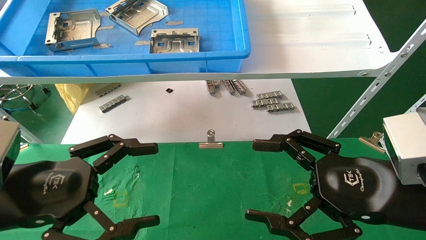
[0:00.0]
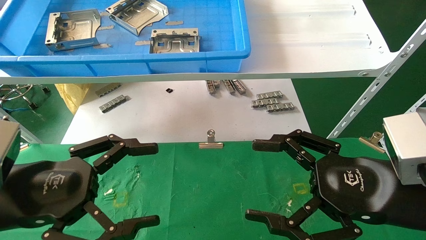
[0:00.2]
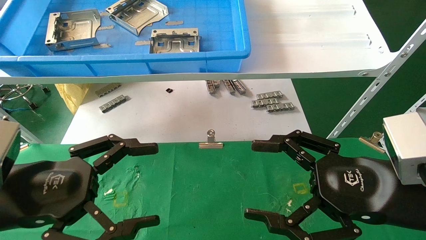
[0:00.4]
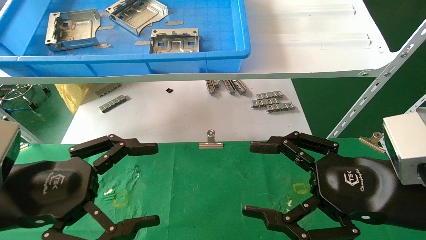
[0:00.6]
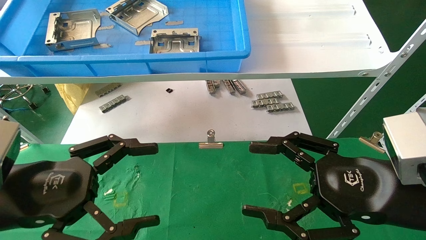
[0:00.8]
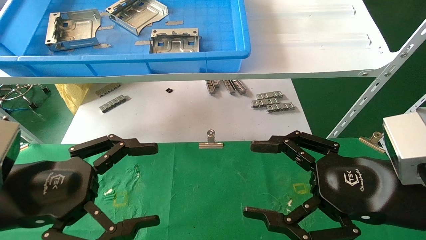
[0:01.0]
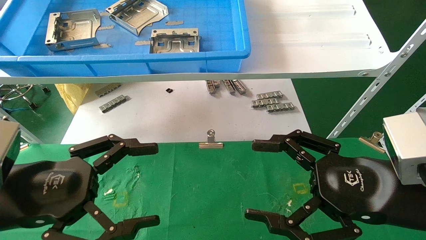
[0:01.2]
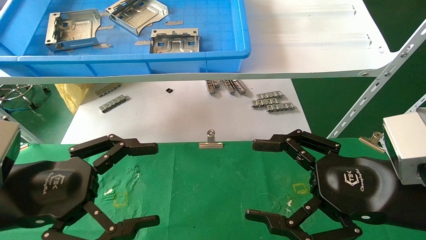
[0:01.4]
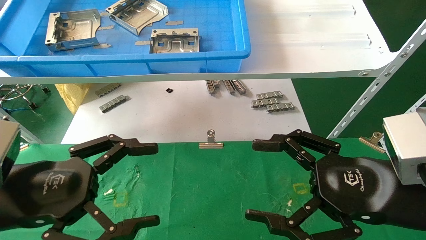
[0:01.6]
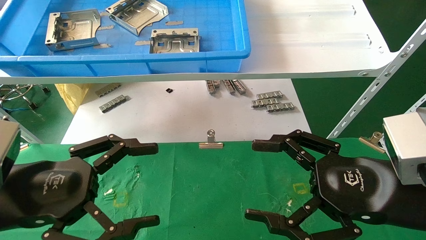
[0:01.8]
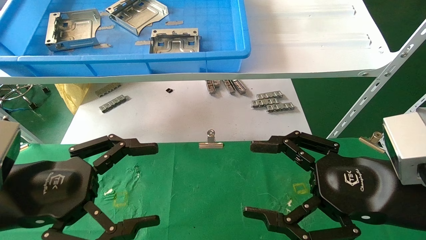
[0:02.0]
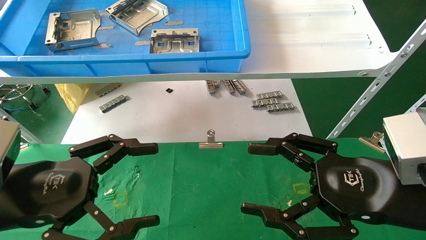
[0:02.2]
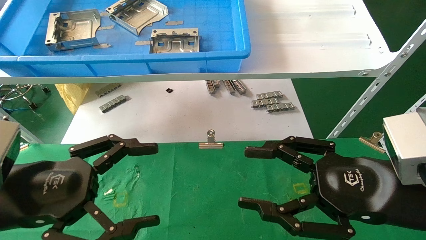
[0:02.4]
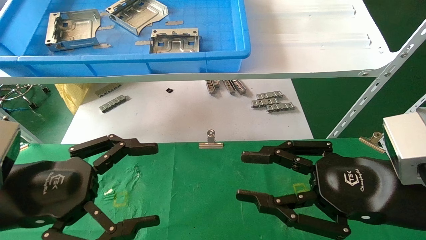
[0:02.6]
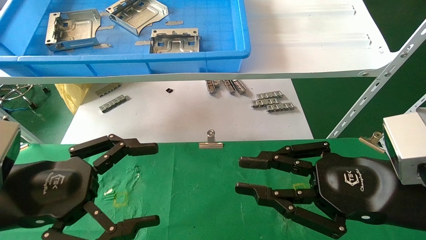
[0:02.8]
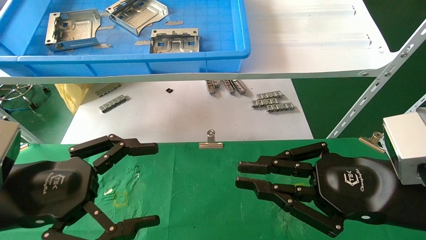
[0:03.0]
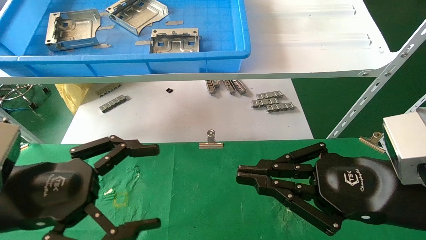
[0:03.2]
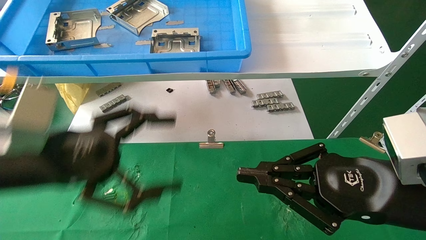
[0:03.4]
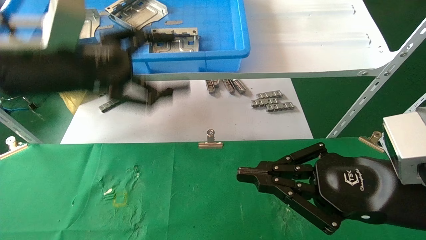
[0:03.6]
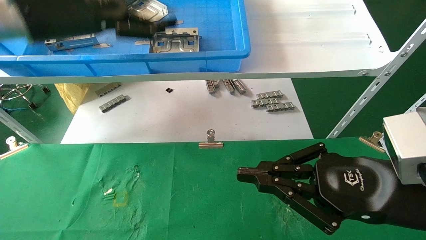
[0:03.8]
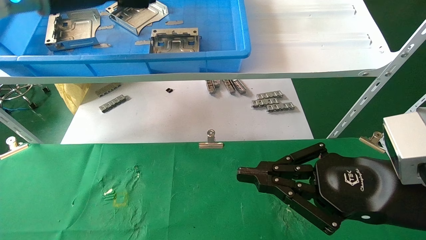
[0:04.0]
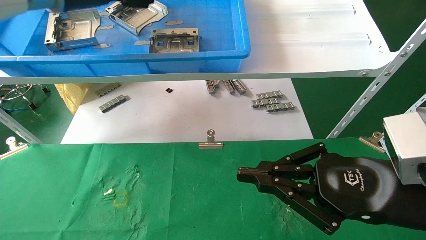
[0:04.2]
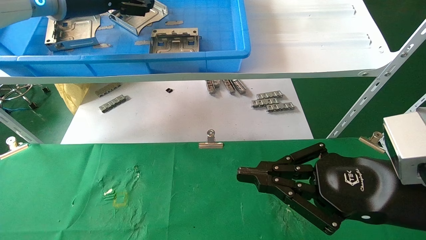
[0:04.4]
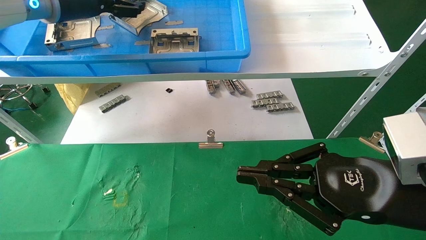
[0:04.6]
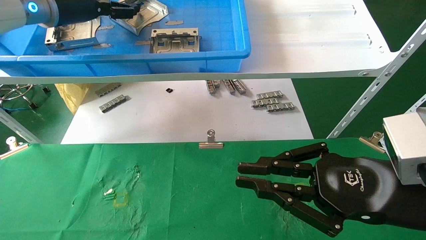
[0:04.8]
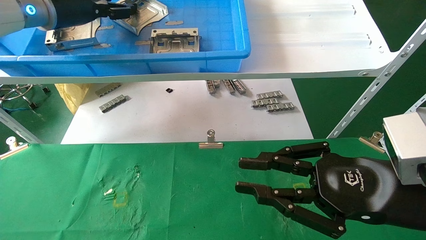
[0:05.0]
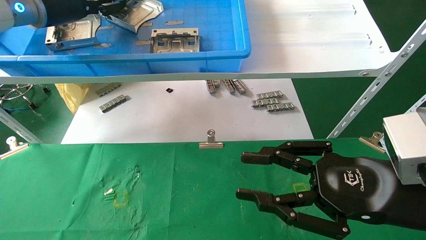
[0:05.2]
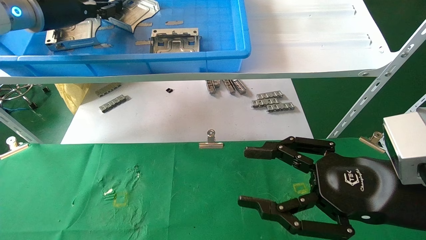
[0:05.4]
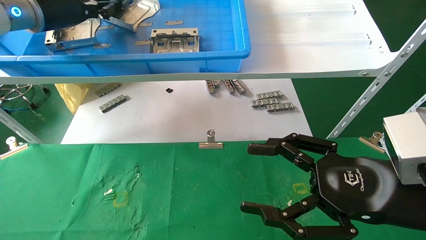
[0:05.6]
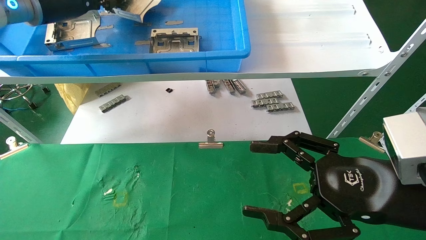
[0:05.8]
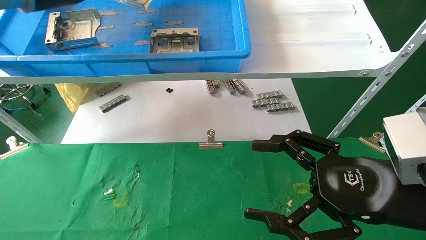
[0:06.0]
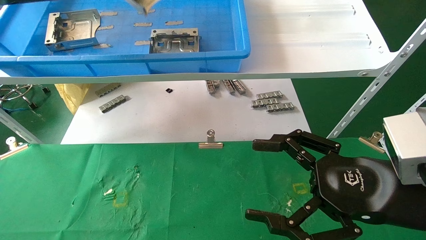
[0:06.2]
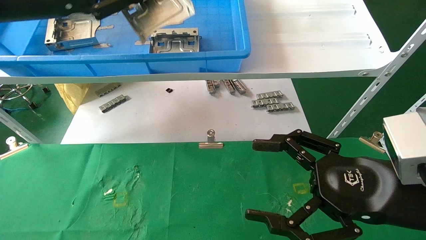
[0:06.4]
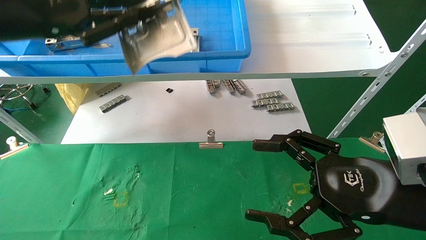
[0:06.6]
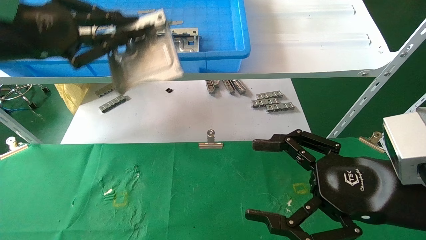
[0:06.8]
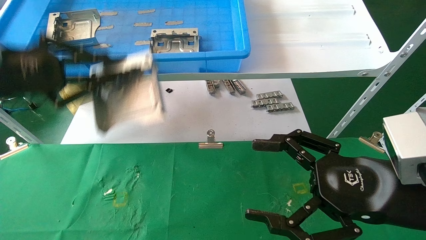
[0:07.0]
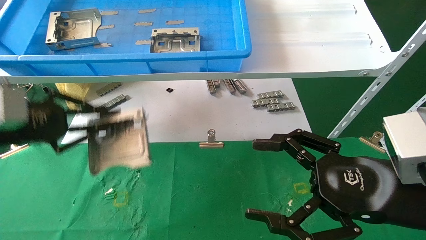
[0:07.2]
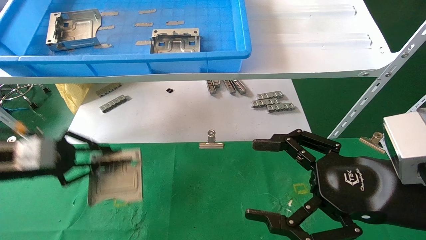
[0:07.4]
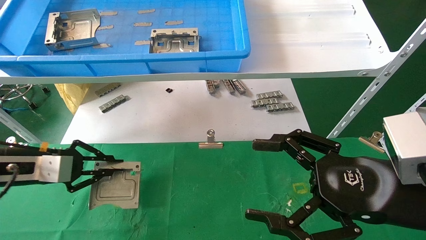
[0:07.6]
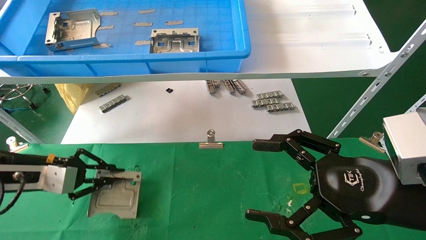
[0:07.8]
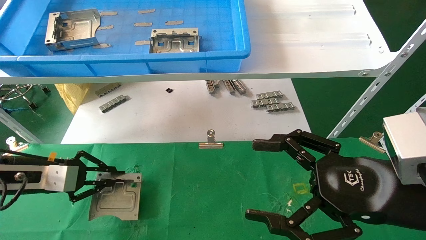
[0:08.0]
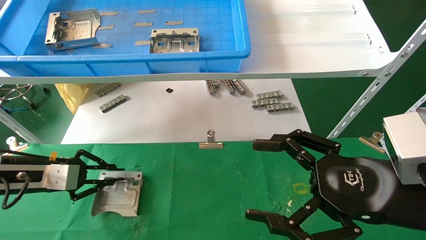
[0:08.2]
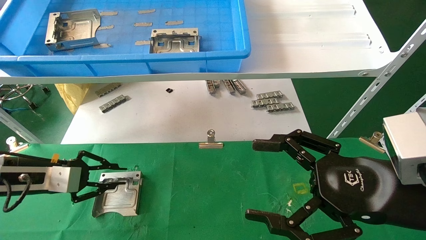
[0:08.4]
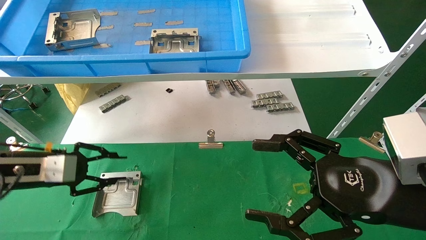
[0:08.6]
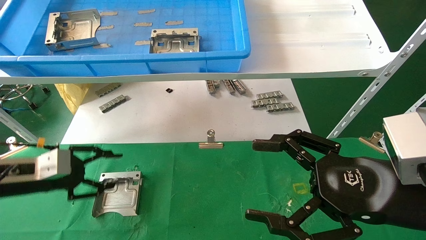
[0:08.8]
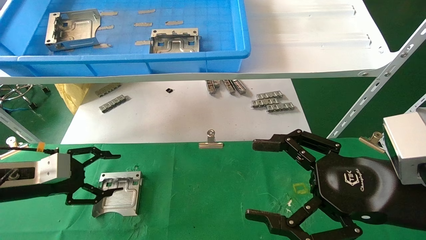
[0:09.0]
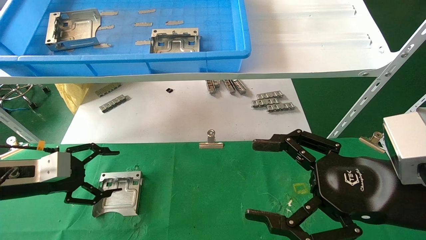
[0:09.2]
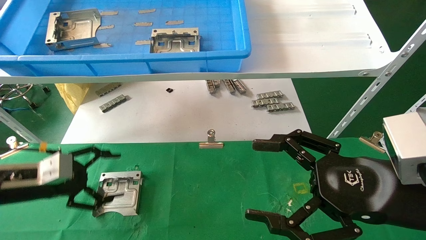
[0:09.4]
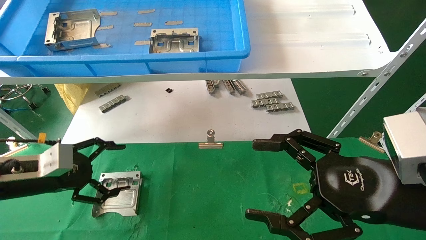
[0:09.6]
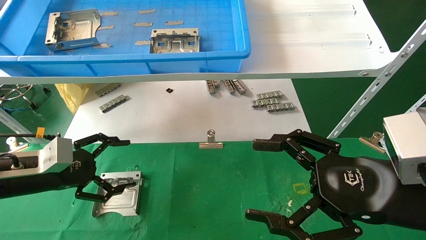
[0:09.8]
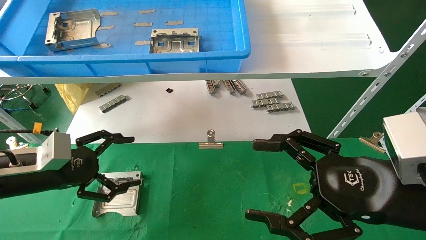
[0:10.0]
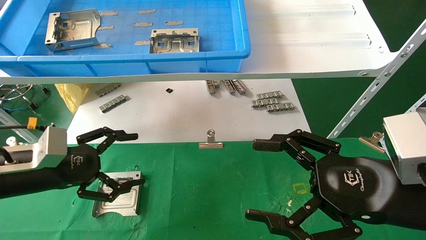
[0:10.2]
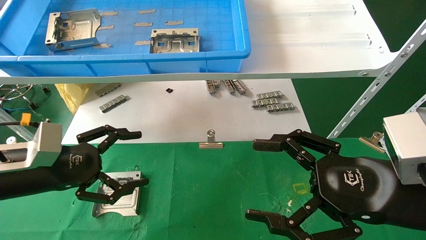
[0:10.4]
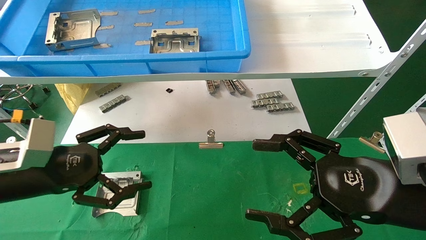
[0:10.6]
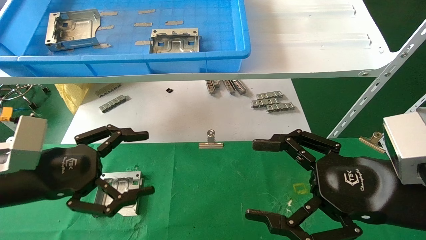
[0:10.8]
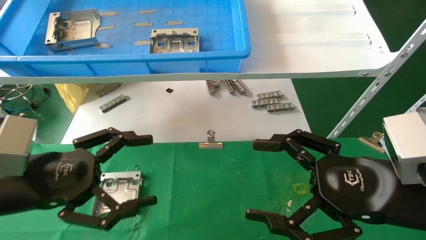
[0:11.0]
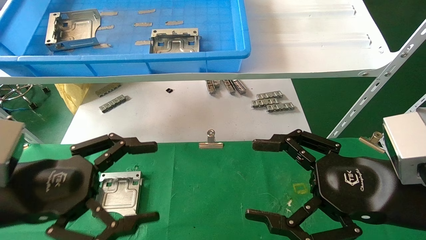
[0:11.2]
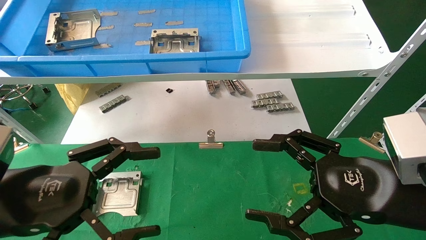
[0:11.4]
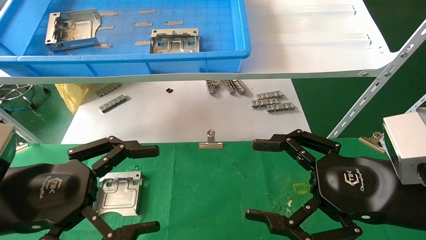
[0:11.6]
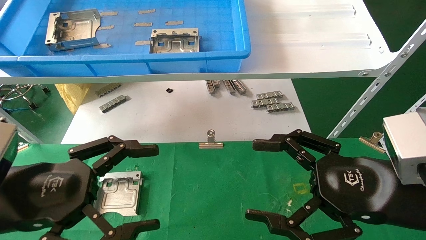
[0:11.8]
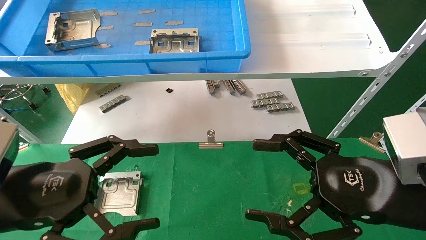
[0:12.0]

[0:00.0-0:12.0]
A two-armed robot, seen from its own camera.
Task of the whole recording: use the mechanical arm to pick up the parts and place them on the table.
Step, 0:03.6 to 0:05.8: Pick up the hard drive bracket from the feeding area.
Step, 0:06.0 to 0:08.2: Place the hard drive bracket into the box.
0:00.0 to 0:01.6: Both grippers stay put.
0:01.6 to 0:03.0: The right gripper closes its fingers.
0:03.0 to 0:04.4: The left gripper is displaced upward and forward by some 35 cm.
0:04.4 to 0:06.0: The left gripper closes its fingers. The right gripper opens.
0:06.0 to 0:07.6: The left gripper is displaced downward by about 30 cm.
0:07.6 to 0:09.0: The left gripper opens its fingers.
0:09.0 to 0:10.4: The left gripper heads to the right and backward, covering some 10 cm, and opens up.
0:10.4 to 0:12.0: The left gripper moves backward, approximately 10 cm.
